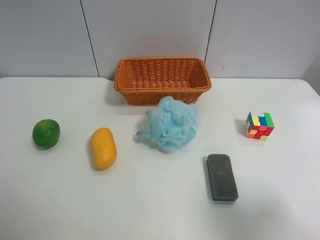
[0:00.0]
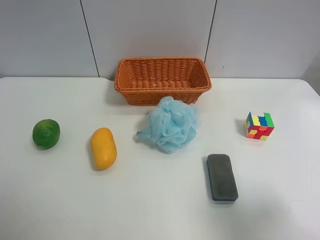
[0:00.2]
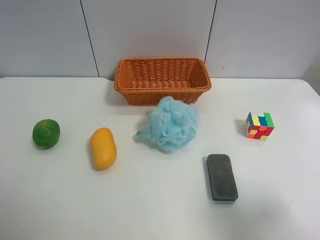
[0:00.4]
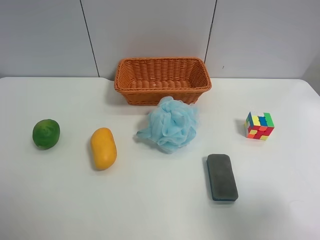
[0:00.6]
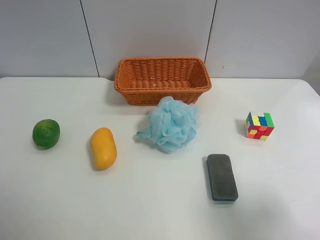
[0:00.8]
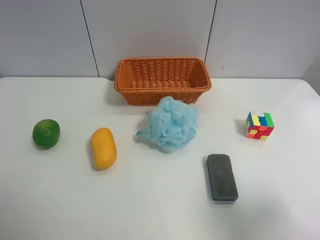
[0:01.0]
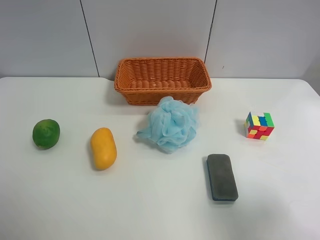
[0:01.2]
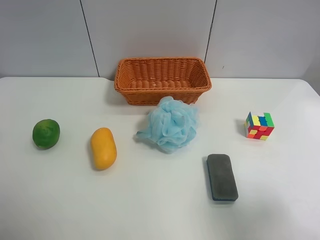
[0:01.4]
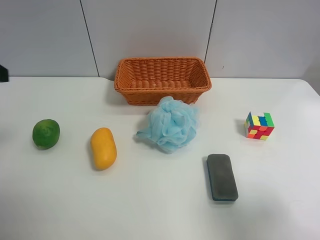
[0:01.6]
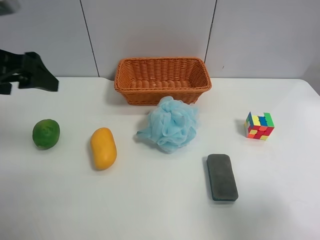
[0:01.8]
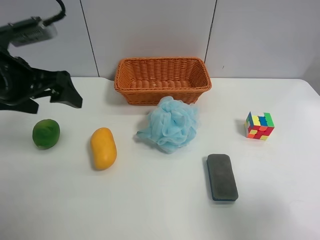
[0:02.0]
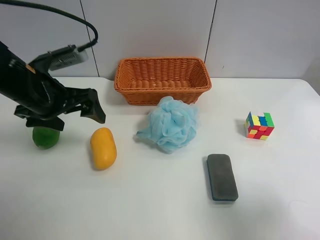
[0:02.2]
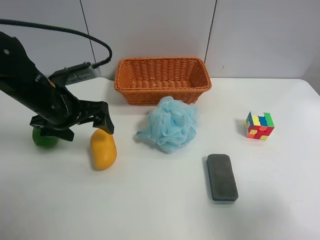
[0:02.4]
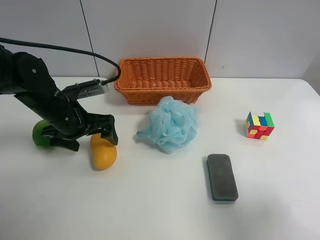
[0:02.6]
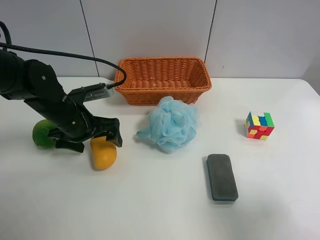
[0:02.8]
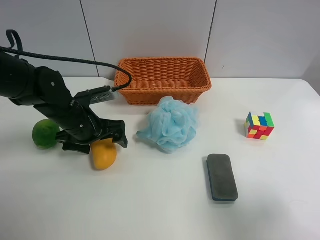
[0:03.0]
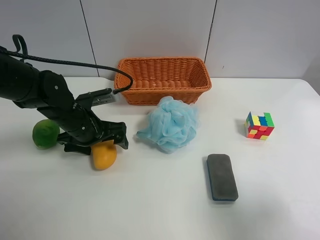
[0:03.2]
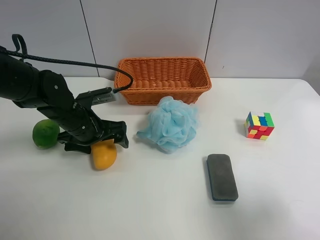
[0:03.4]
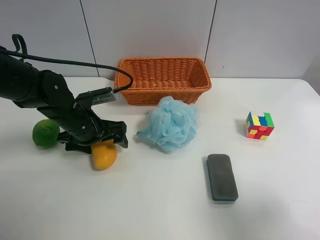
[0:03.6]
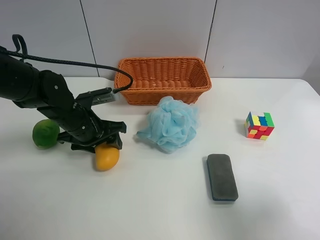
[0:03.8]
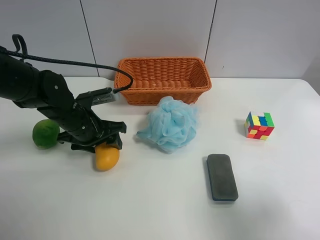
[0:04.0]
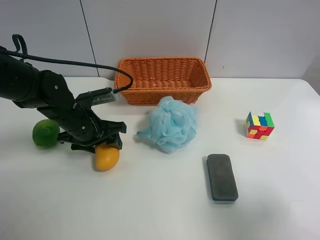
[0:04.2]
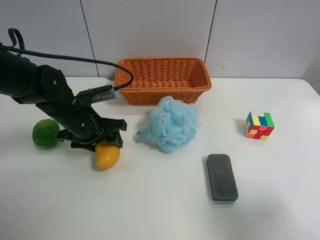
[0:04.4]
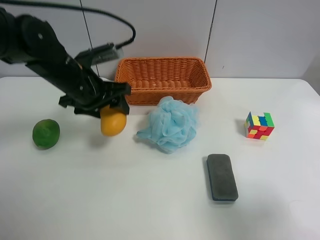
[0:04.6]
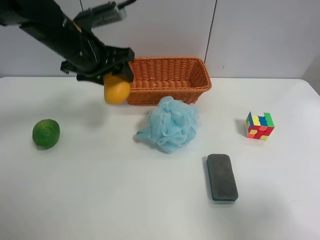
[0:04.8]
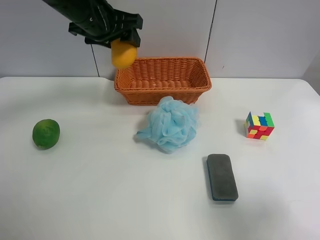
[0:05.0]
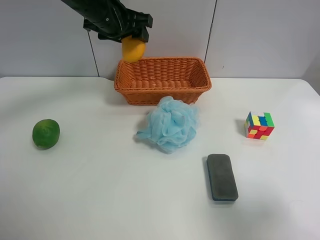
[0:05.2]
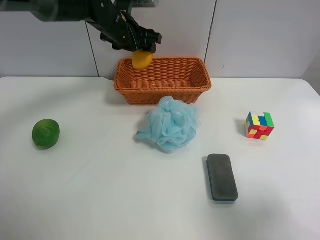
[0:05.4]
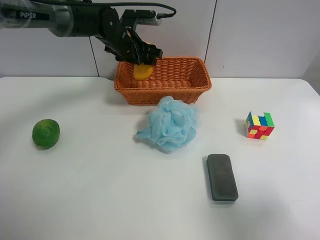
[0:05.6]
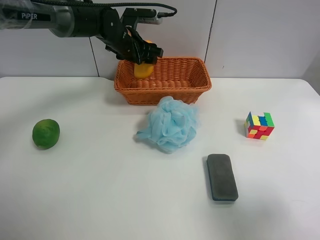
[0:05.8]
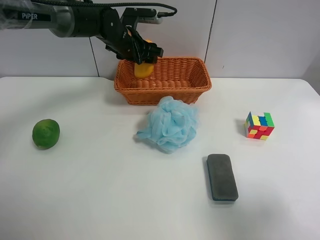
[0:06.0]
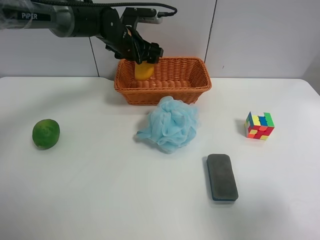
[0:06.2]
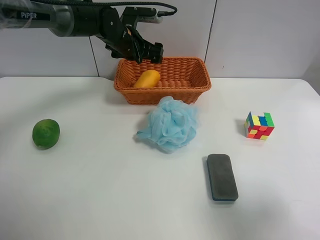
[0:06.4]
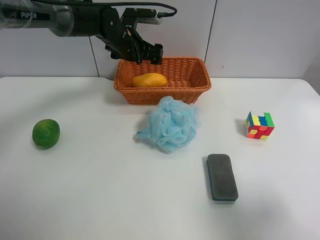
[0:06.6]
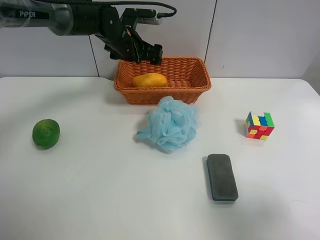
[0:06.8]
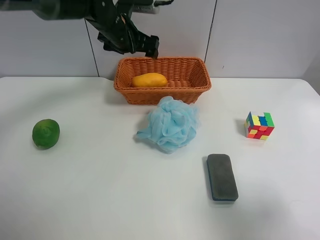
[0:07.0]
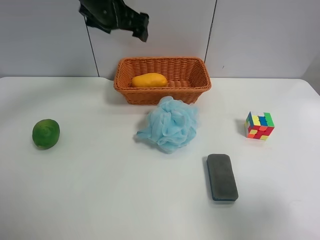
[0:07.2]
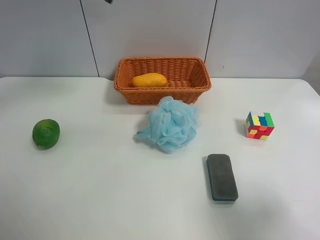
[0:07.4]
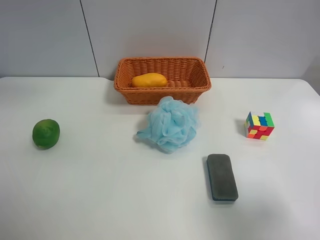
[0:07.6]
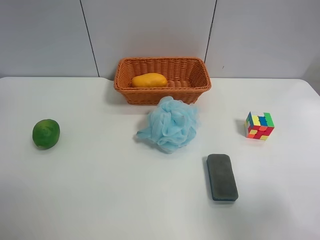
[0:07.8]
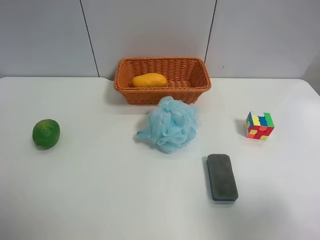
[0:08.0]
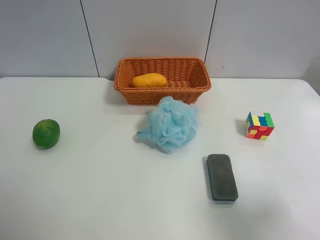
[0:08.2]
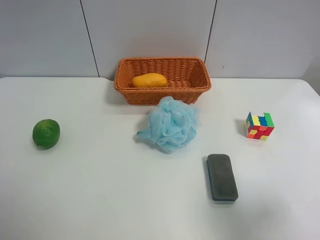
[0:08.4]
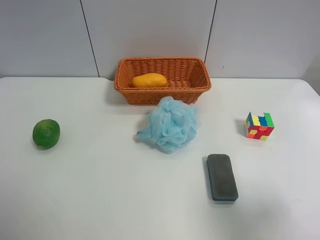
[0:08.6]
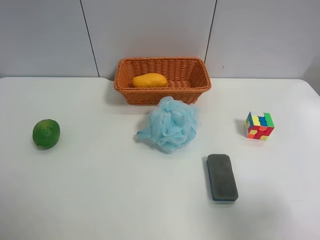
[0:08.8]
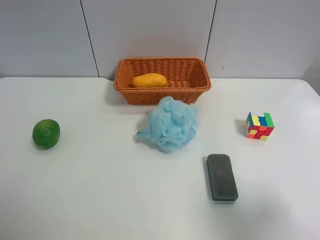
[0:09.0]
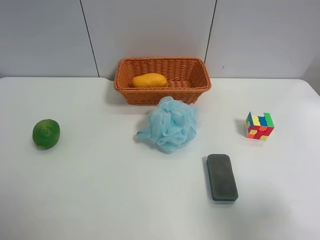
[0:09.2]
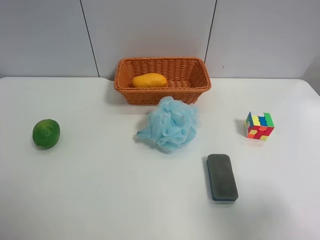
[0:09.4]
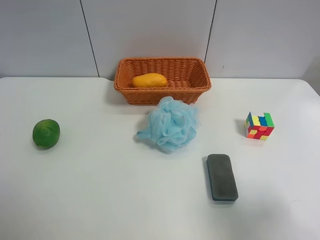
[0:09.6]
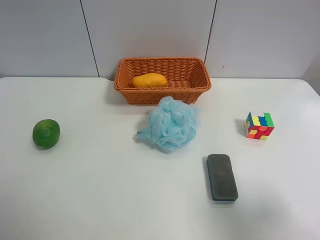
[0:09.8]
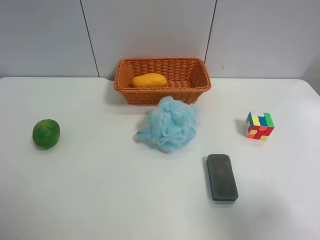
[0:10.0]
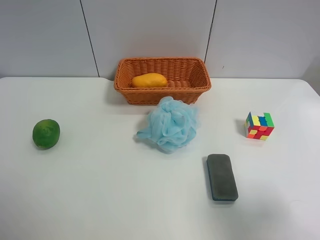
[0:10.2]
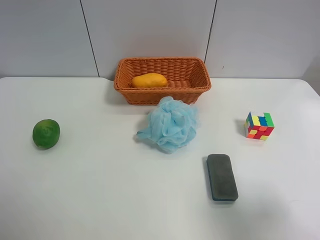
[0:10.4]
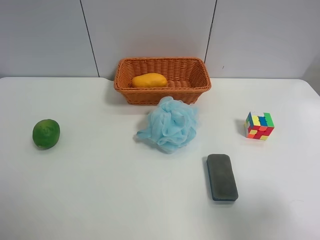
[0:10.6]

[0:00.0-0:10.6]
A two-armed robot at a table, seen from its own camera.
Task of the whole recording: Randomly grab green lemon or mangoes from the table and put them in a basket.
Step, 0:00.0 to 0:04.0: Grasp the mango with the left gripper.
Step, 0:04.2 to 0:07.2: Place the mango into the basket with the left gripper.
0:01.6 to 0:03.0: The left gripper shifts approximately 25 cm downward, to the right and forward.
0:03.0 to 0:04.6: The left gripper shifts some 10 cm upward, and closes up.
0:04.6 to 0:06.0: The left gripper travels forward by some 15 cm.
0:06.0 to 0:07.6: The left gripper shifts approximately 30 cm upward, backward and to the left, and opens up.
